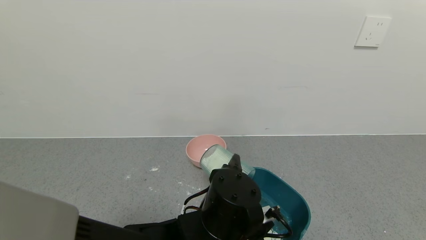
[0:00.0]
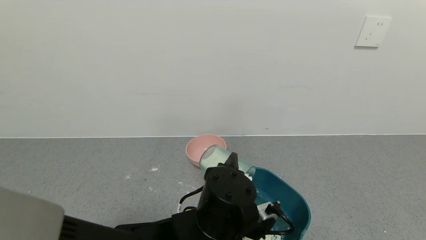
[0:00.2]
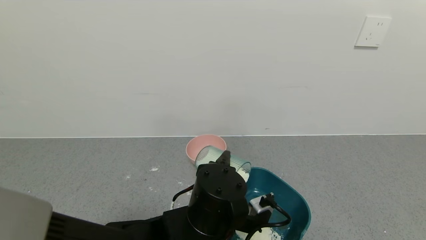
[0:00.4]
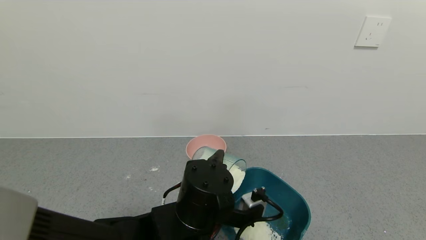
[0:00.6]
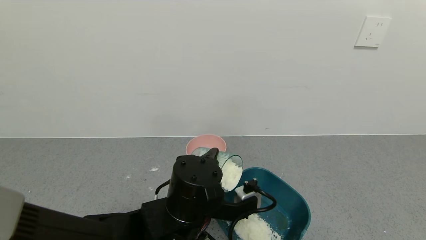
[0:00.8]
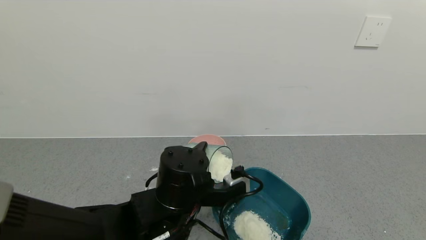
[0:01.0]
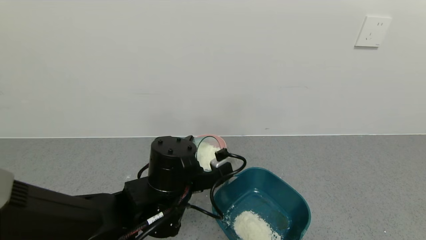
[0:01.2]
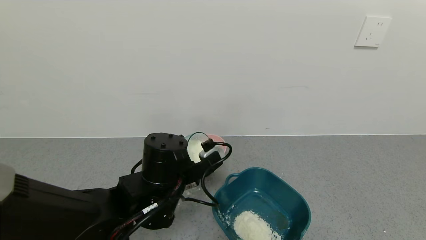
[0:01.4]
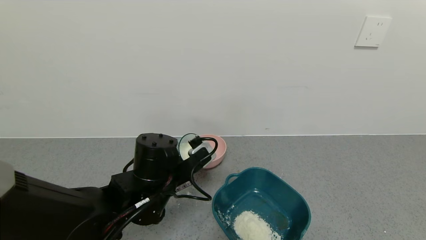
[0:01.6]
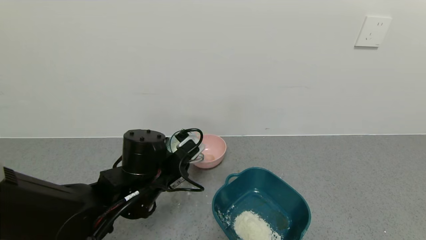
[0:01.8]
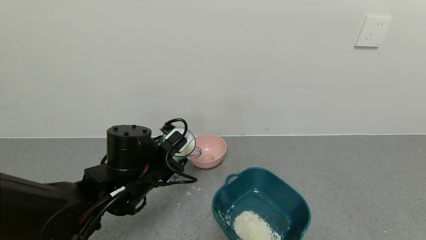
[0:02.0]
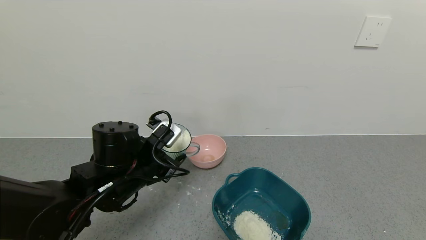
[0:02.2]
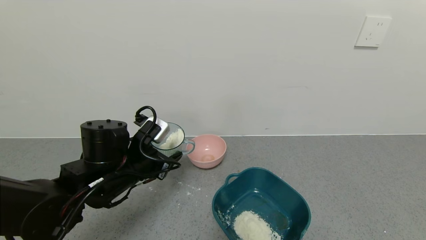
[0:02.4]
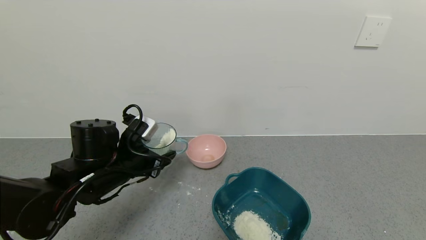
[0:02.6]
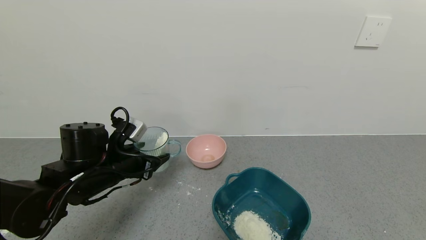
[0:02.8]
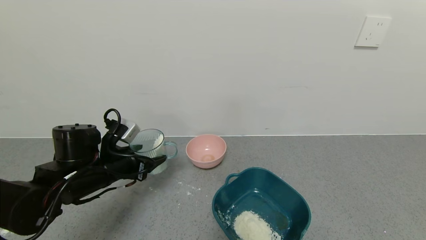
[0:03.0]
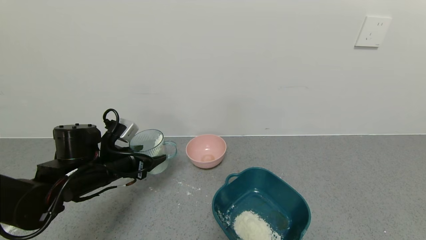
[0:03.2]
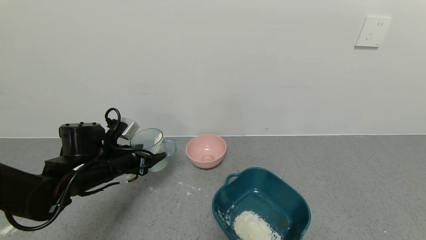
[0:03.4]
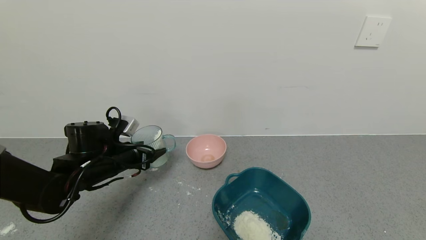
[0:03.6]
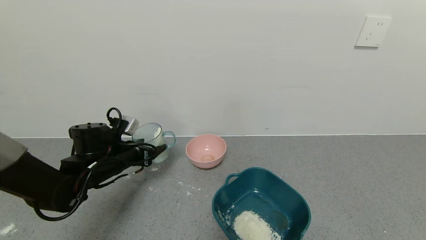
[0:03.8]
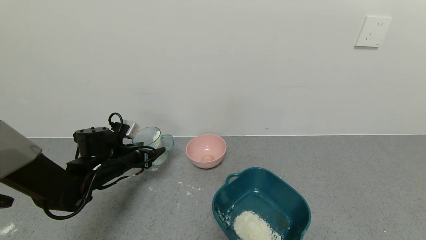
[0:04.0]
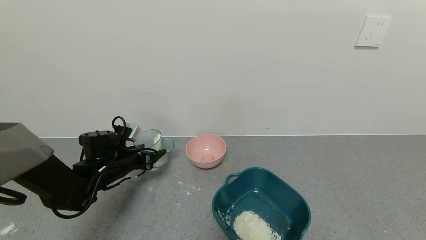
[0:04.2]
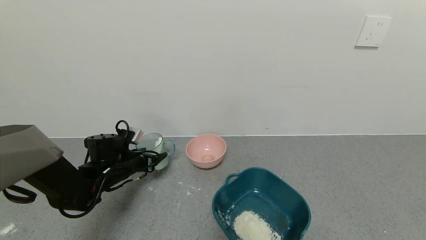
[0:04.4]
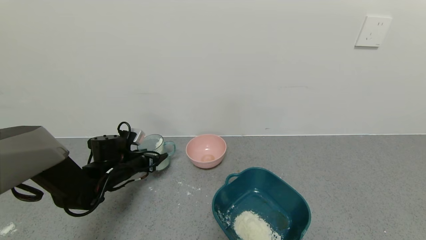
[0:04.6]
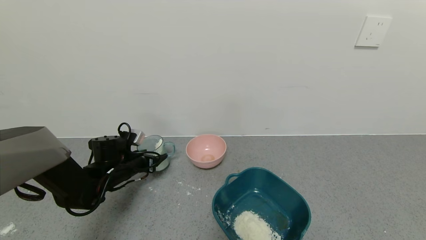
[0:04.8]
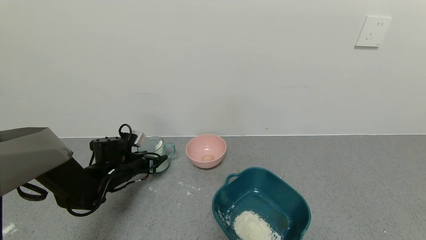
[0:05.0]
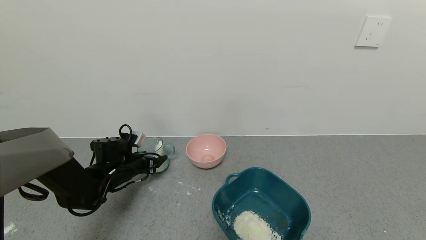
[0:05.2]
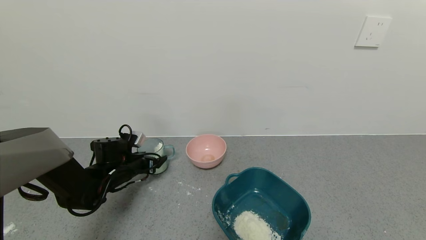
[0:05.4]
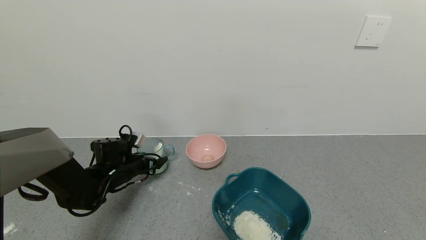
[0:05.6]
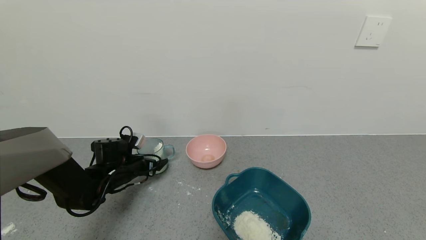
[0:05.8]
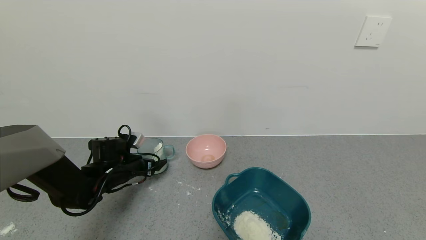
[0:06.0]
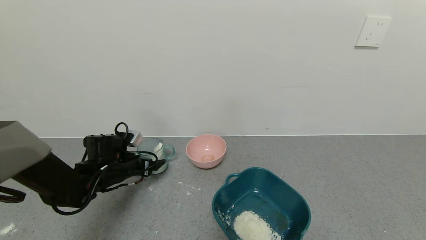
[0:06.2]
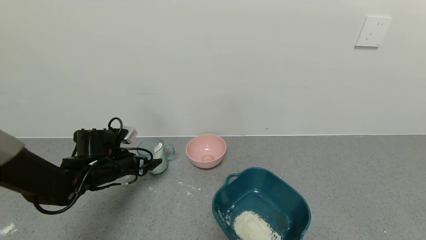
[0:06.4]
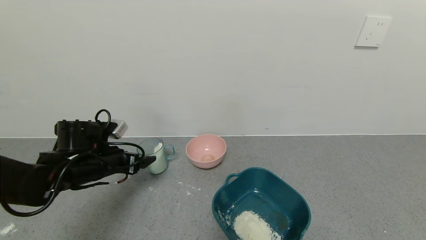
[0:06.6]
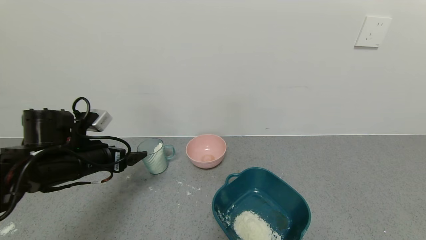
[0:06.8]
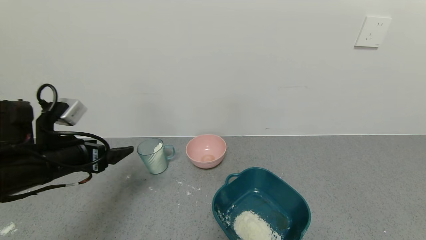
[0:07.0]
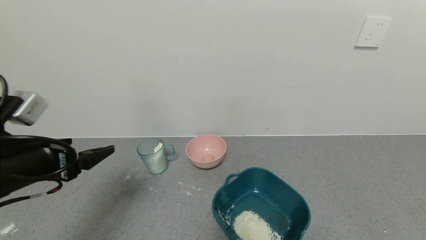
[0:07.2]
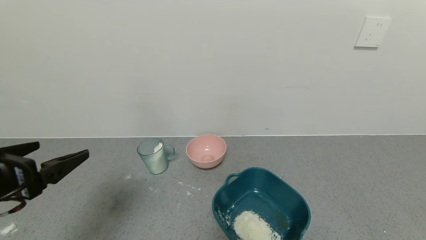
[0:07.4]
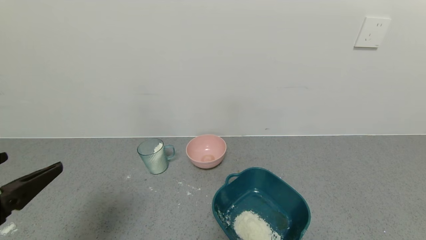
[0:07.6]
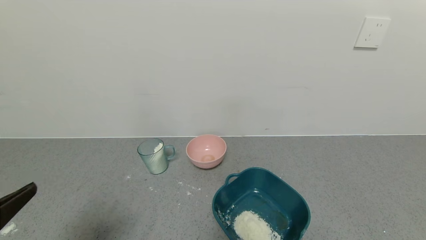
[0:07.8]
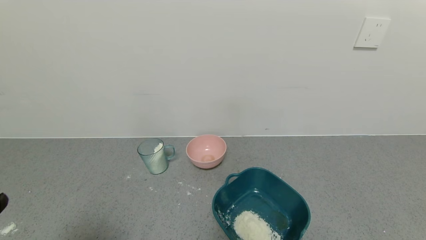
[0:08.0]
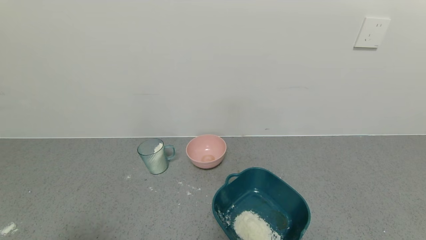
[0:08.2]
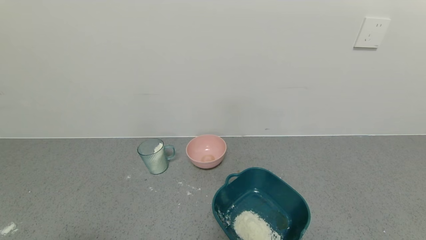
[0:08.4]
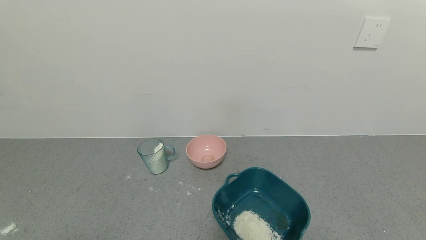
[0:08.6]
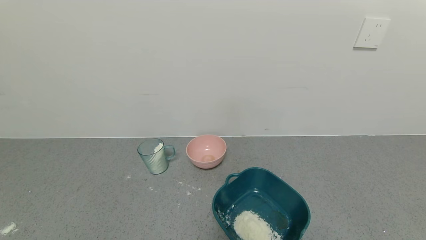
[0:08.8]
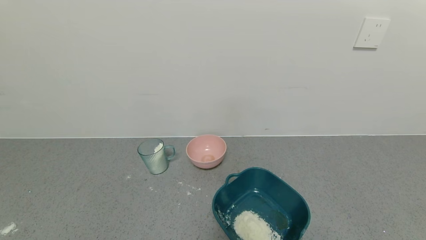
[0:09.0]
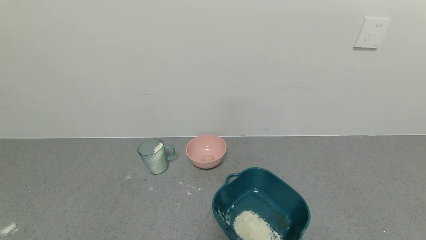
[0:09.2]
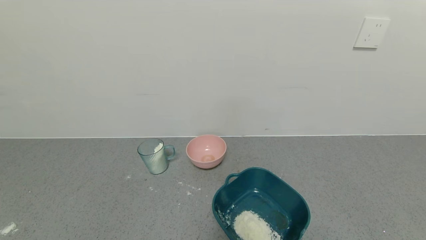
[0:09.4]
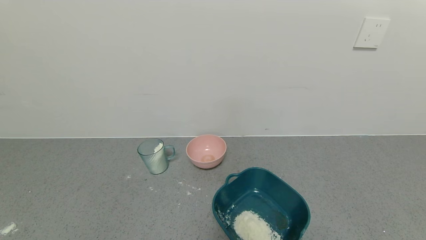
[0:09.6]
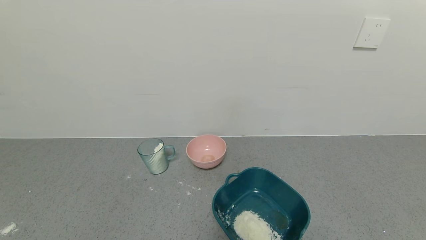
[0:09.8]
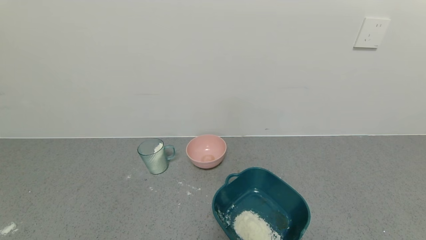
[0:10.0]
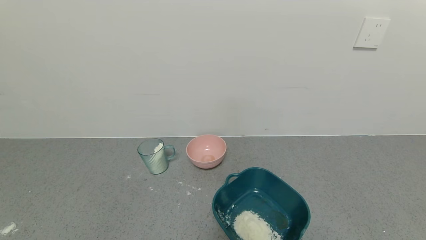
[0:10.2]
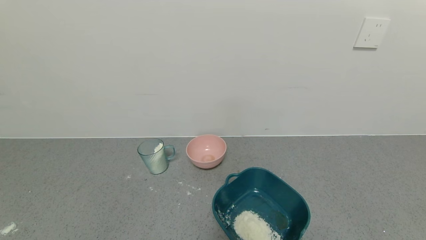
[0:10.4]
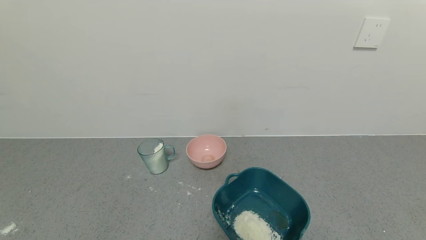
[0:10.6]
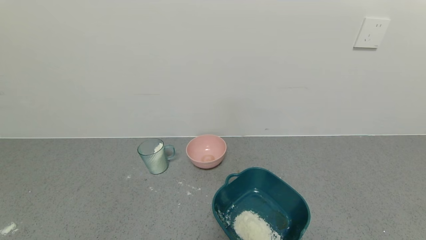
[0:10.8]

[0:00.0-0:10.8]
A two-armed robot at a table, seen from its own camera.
Task of the whole recording: use a gripper to pick up the cup and pour the powder into a bowl or tray.
Step, 0:00.4 to 0:06.2: Place the glass cup down with the left gripper.
0:00.0 to 0:01.6: The left gripper moves to the left and forward, approximately 10 cm.
0:01.6 to 0:03.0: The left gripper travels to the left by about 15 cm.
0:03.0 to 0:04.6: The left gripper shifts roughly 10 cm forward and downward.
0:04.6 to 0:06.2: The left gripper opens up.
0:06.2 to 0:07.8: The left gripper moves backward and upward, roughly 35 cm.
0:07.8 to 0:09.2: The left gripper moves backward and downward, some 15 cm.

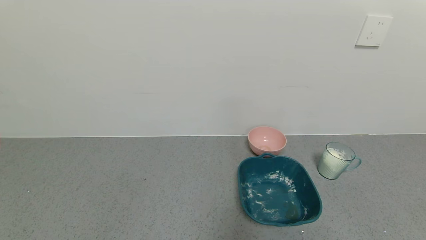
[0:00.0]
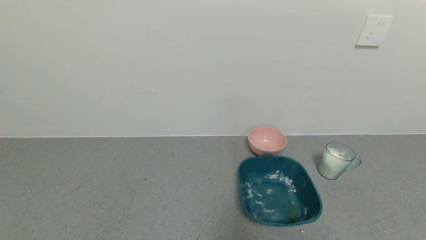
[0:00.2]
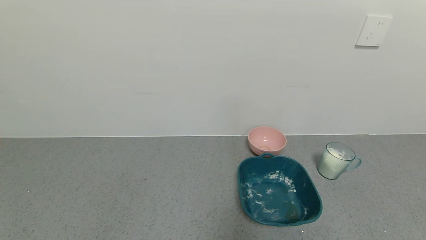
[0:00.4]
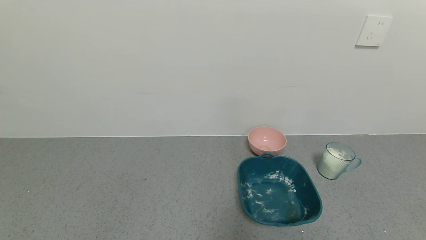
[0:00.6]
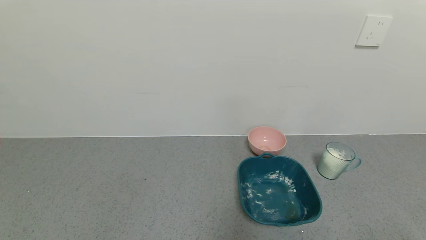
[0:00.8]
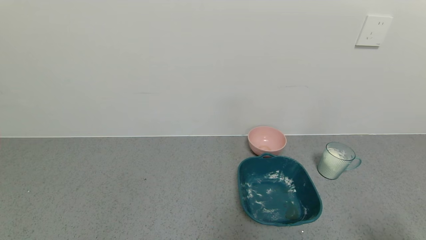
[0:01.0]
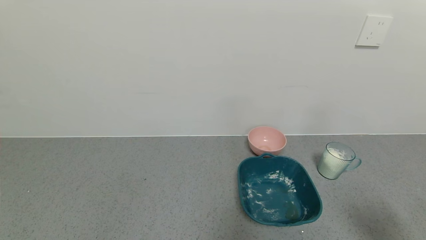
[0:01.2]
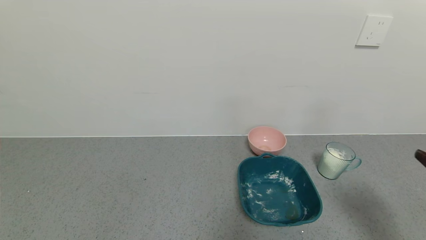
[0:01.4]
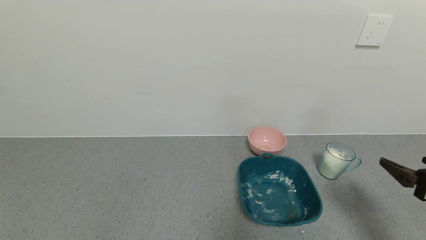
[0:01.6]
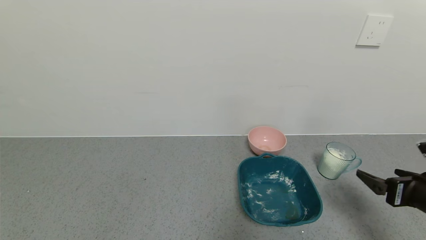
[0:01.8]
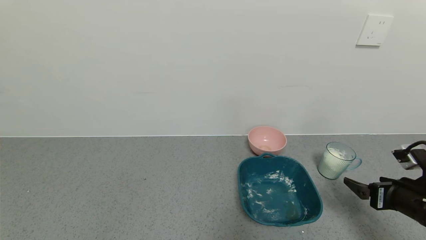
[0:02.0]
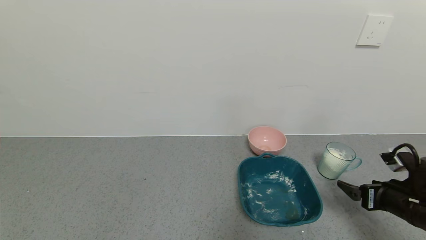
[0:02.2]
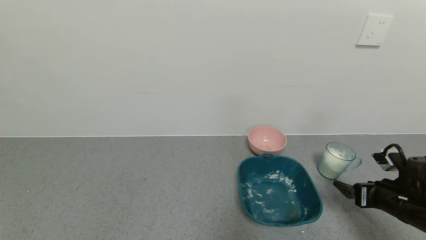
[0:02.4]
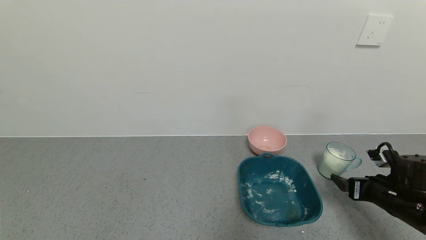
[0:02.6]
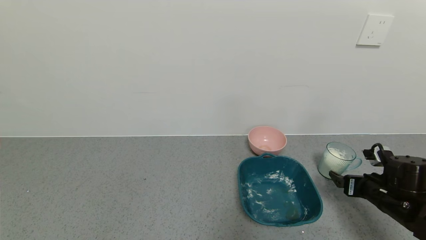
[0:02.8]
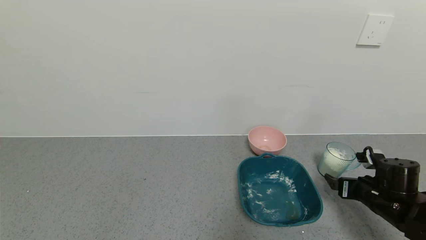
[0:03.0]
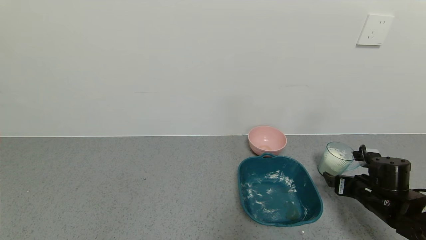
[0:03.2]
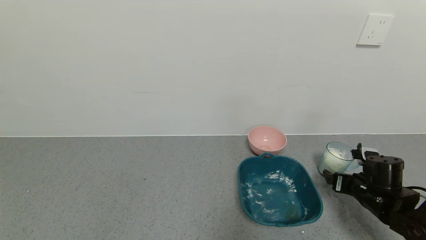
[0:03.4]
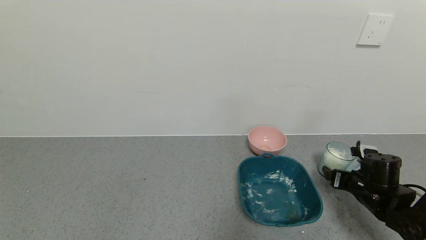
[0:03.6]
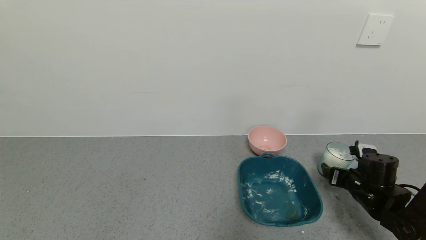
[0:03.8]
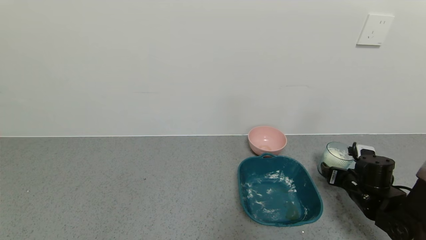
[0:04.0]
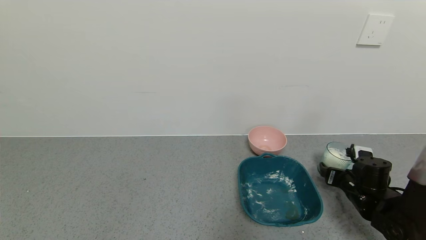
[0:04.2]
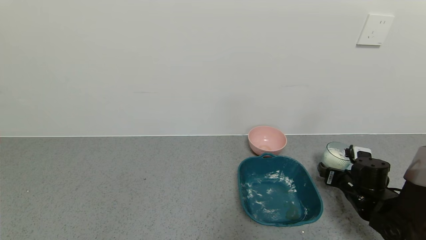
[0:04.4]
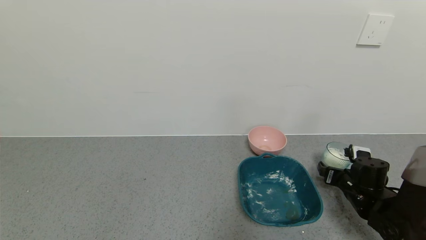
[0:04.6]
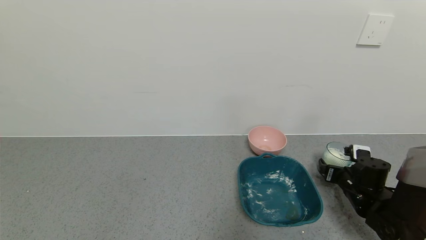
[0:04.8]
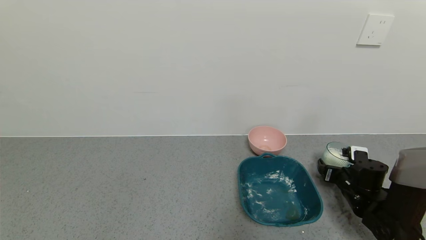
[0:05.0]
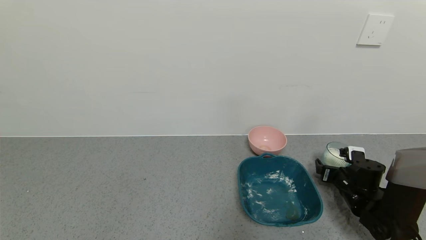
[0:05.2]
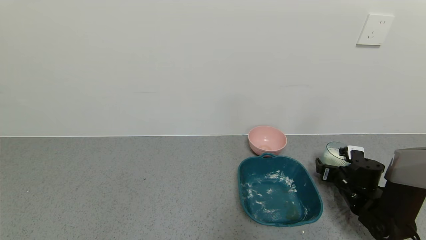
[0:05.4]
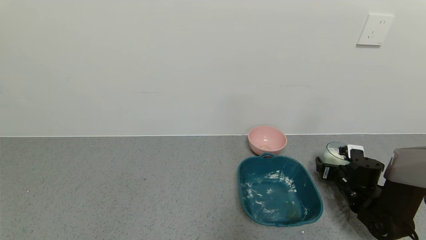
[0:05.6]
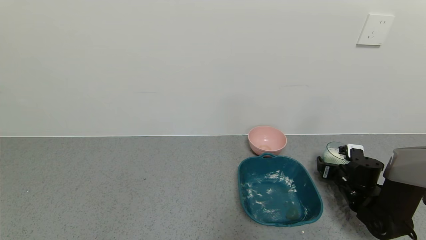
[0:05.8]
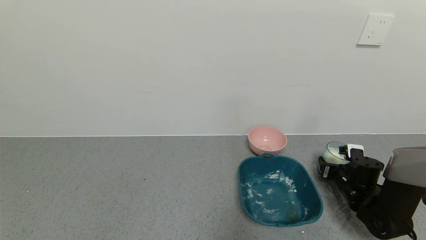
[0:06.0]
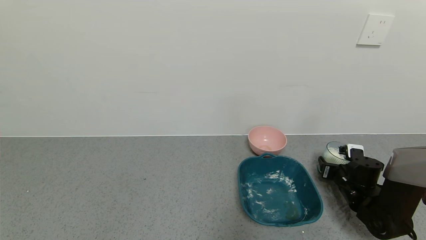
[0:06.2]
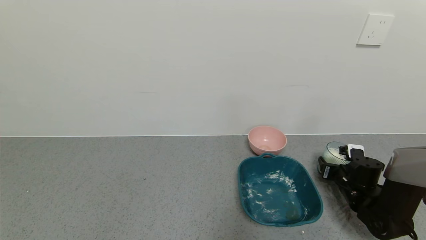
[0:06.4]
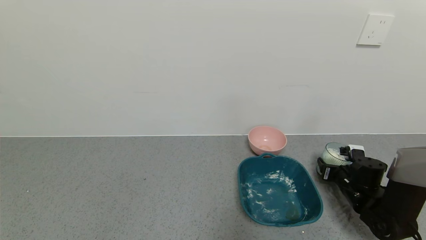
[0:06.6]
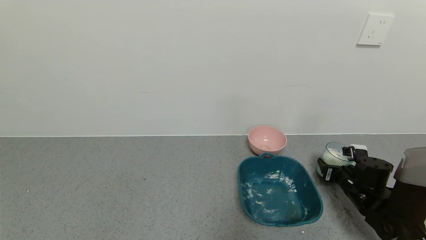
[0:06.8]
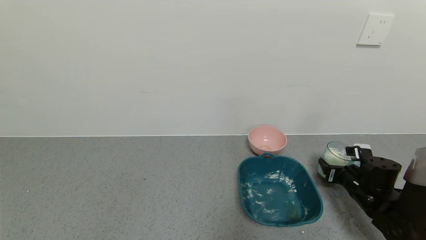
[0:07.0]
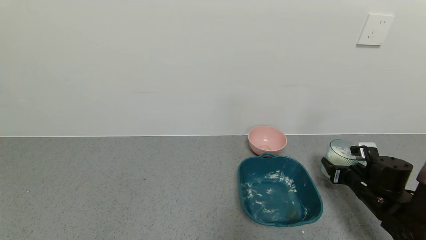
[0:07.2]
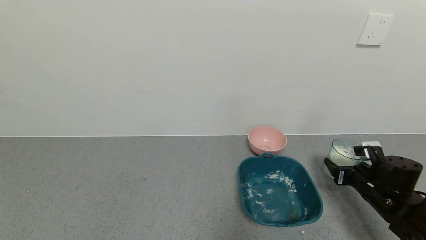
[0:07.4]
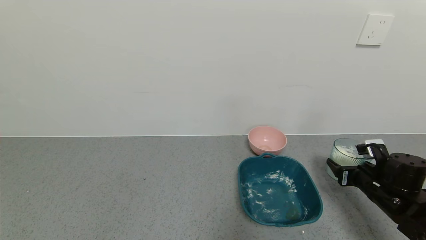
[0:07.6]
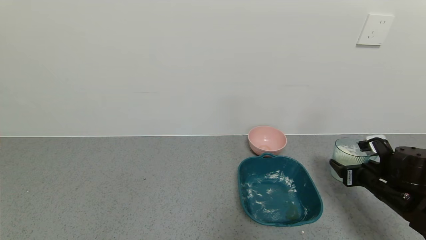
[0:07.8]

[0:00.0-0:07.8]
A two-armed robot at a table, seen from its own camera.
Task of the whole recording: use a gripper to pick up the cup and pour the powder into a bowl or tray.
Step, 0:00.0 to 0:06.0: Grasp the glass of powder with the right gripper.
0:00.0 to 0:01.6: The right gripper is displaced forward by roughly 15 cm.
0:01.6 to 0:03.2: The right gripper shifts approximately 20 cm downward and forward.
0:03.2 to 0:04.6: The grippers stay close to where they were, moving slightly.
0:04.6 to 0:06.2: The right gripper closes its fingers.
0:06.2 to 0:07.8: The right gripper heads upward and backward, covering roughly 10 cm.
